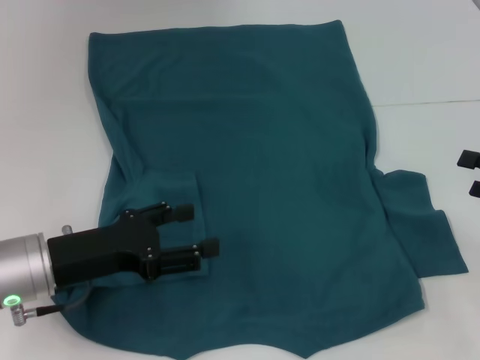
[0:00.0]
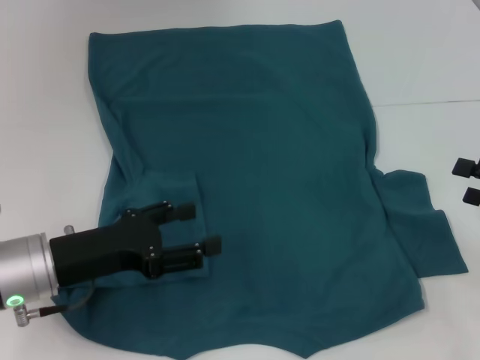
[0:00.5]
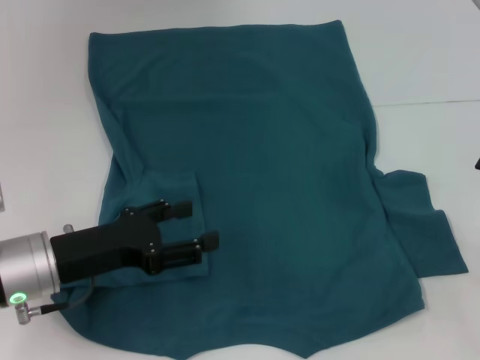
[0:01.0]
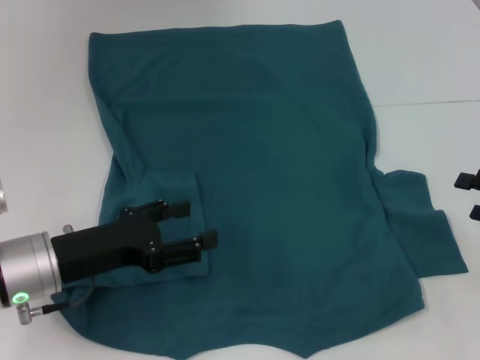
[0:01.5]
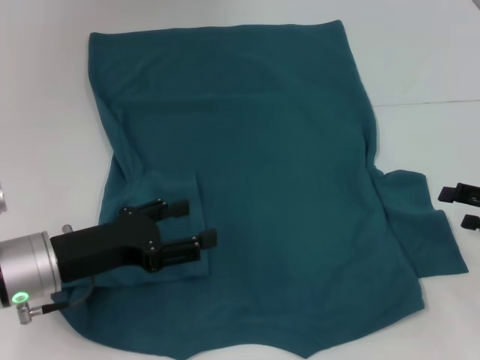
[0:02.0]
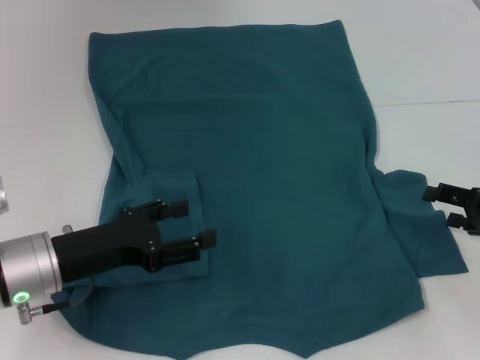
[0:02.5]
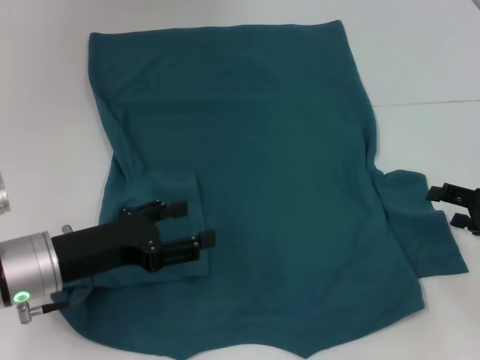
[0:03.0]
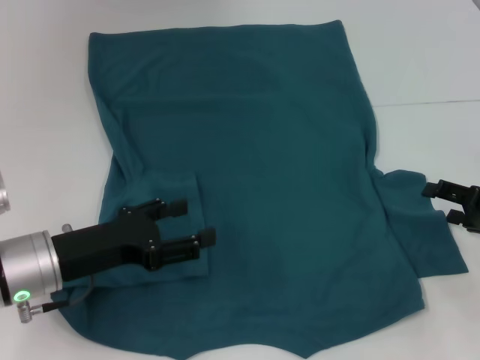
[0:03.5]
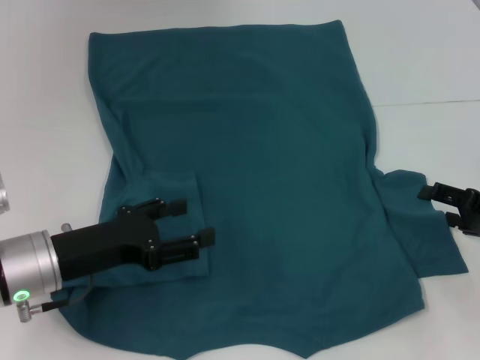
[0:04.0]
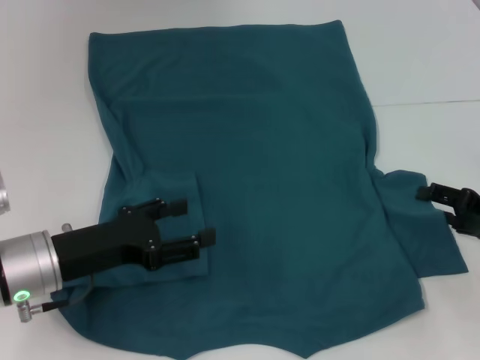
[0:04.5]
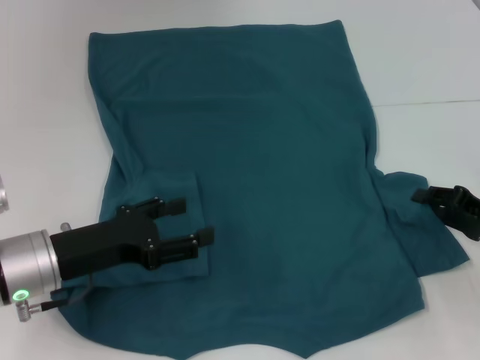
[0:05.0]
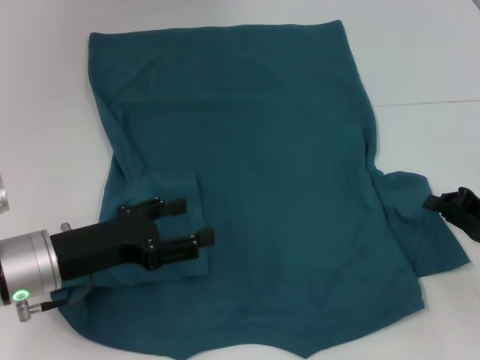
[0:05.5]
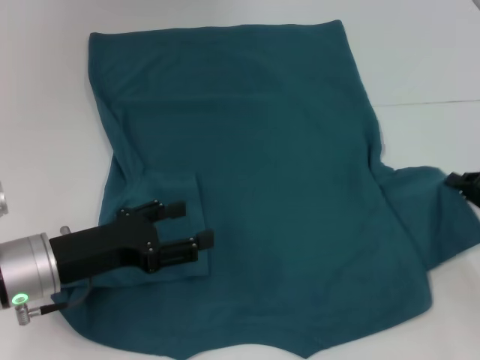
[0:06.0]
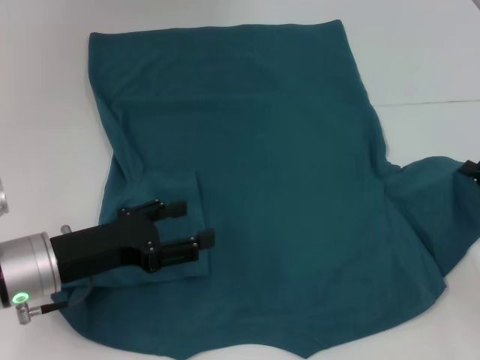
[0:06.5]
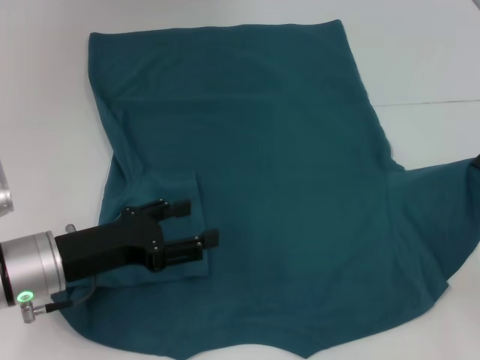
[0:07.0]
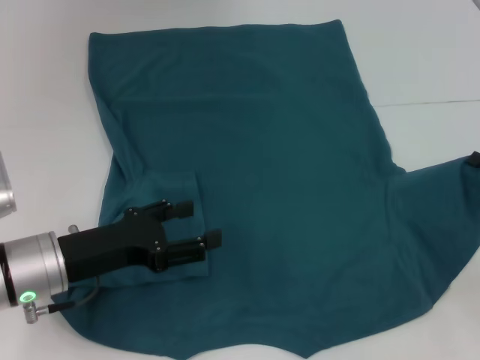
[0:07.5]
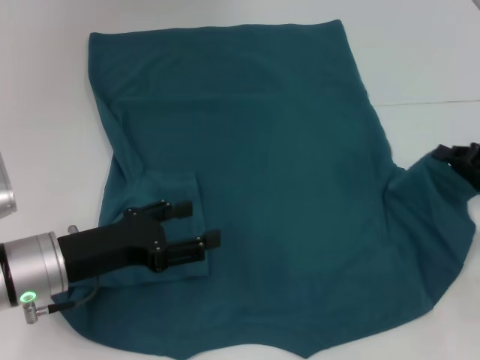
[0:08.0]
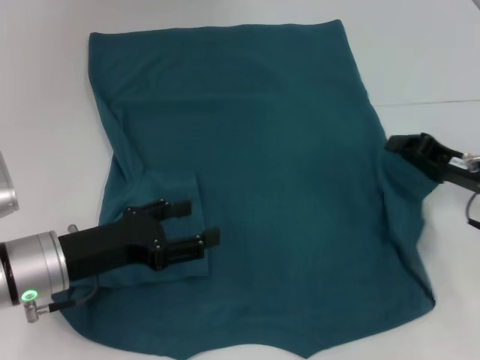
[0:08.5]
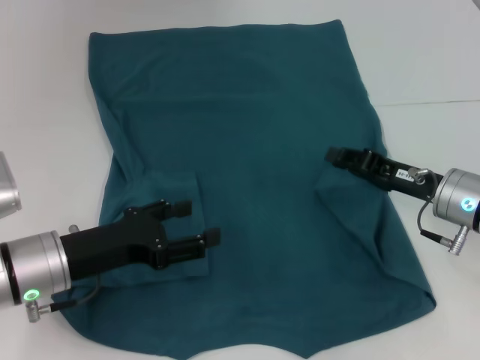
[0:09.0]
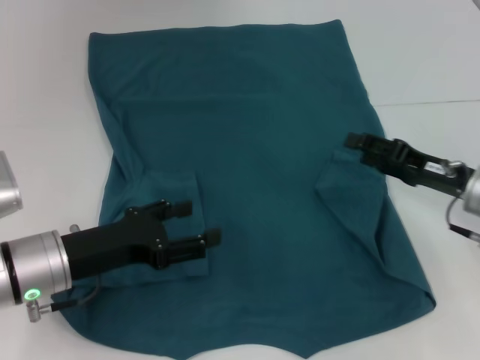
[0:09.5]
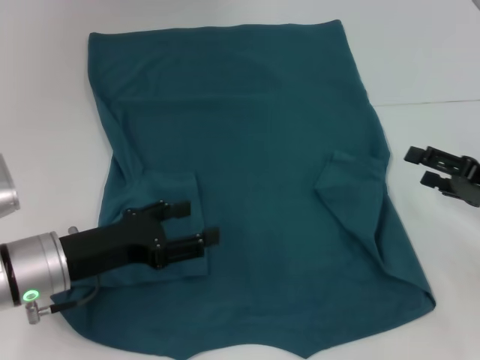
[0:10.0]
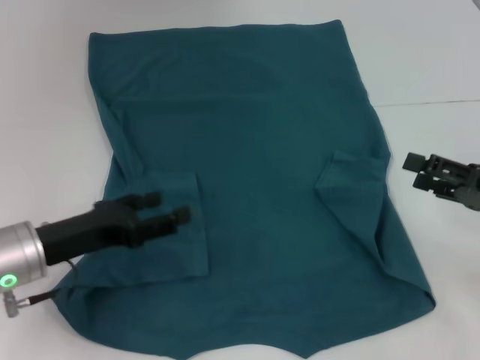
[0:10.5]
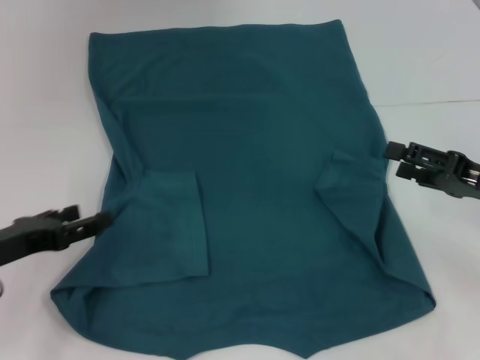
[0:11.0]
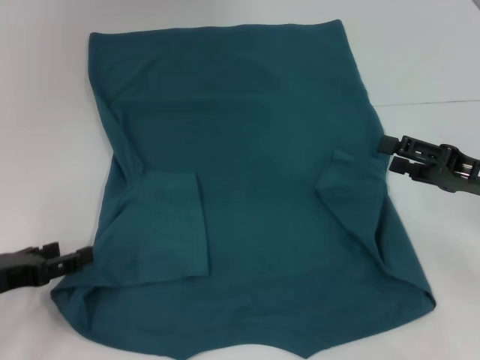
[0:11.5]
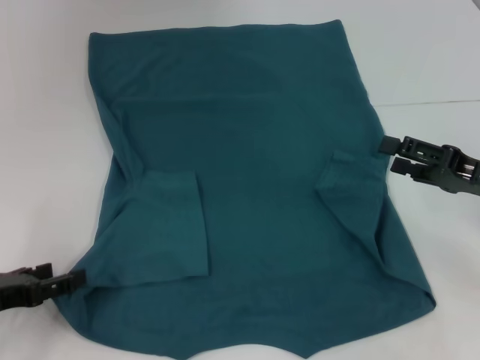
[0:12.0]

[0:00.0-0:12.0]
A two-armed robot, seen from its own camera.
Step, 0:00.0 to 0:09.0: Fold the bottom right sleeve to the right.
0:00.0 to 0:02.0: The grippers move only a little.
0:02.0 to 0:04.0: The grippers make only small movements.
0:04.0 to 0:06.0: The right gripper closes.
0:06.0 to 0:08.0: There are only small adjustments of the grippers.
0:08.0 to 0:10.0: The right gripper travels to the left and back again, approximately 10 cm each way, and opens.
0:10.0 to 0:12.0: The left gripper travels to the left by roughly 10 cm.

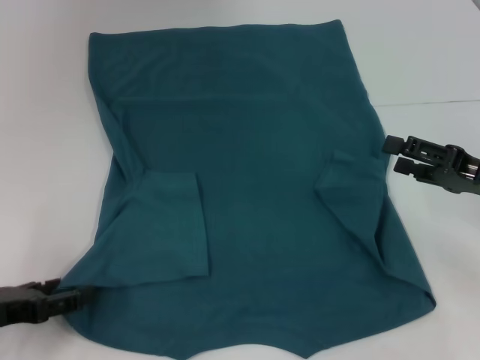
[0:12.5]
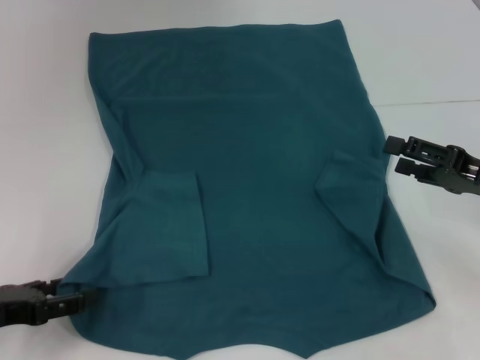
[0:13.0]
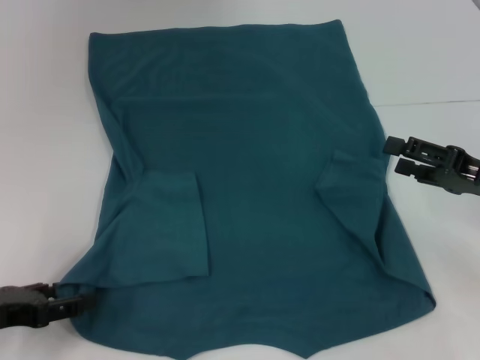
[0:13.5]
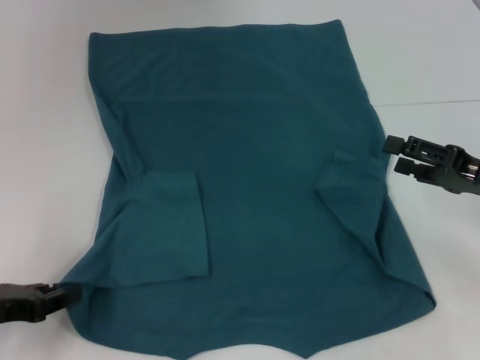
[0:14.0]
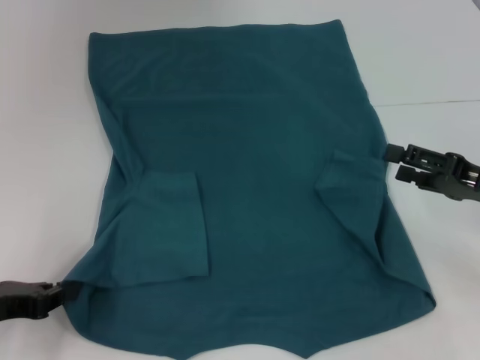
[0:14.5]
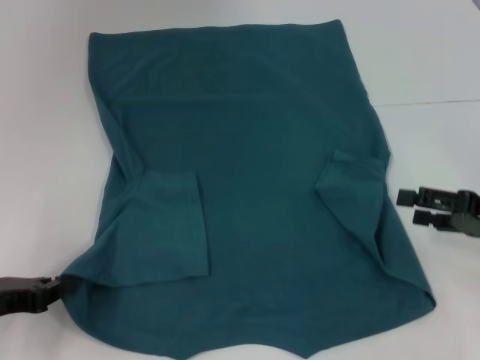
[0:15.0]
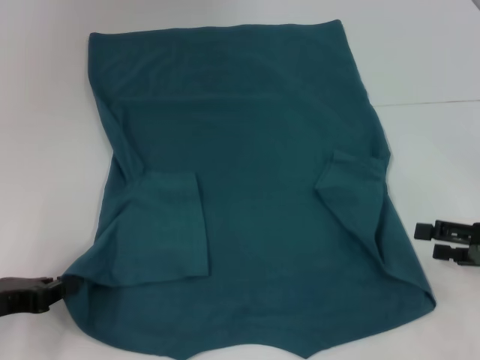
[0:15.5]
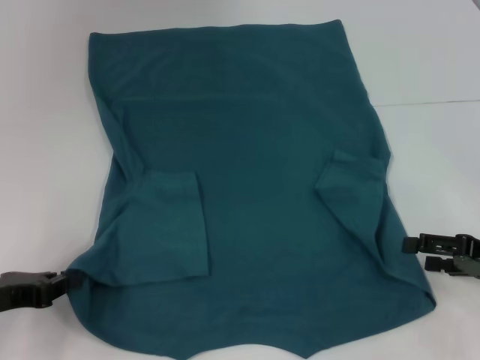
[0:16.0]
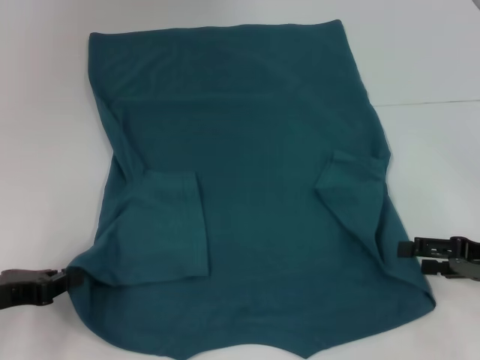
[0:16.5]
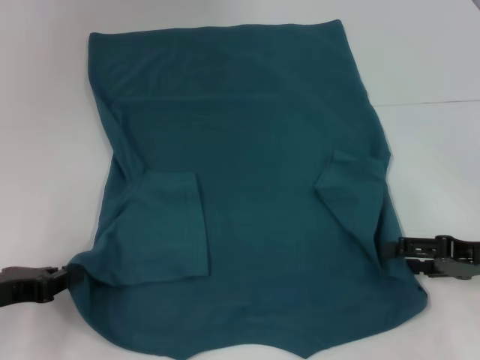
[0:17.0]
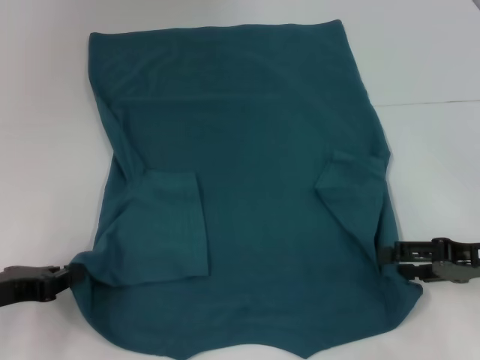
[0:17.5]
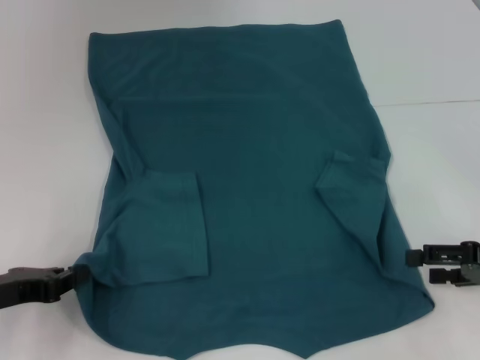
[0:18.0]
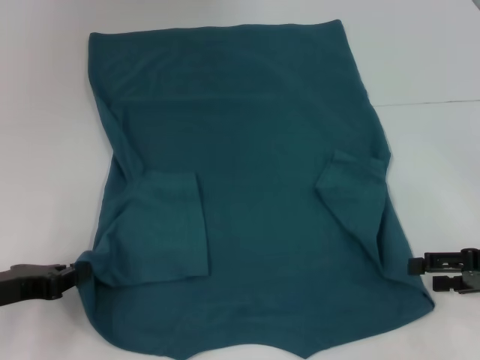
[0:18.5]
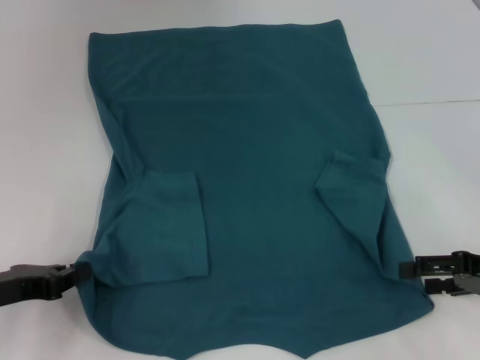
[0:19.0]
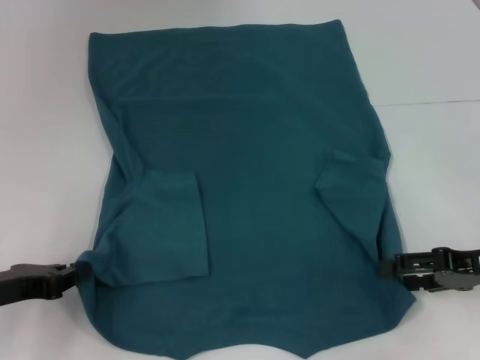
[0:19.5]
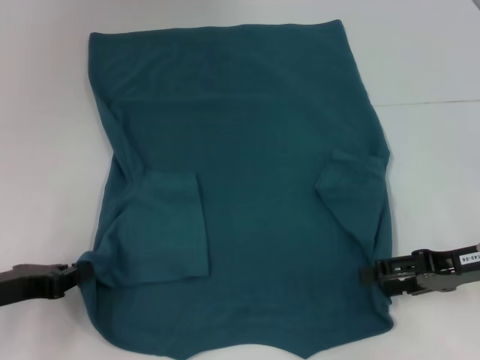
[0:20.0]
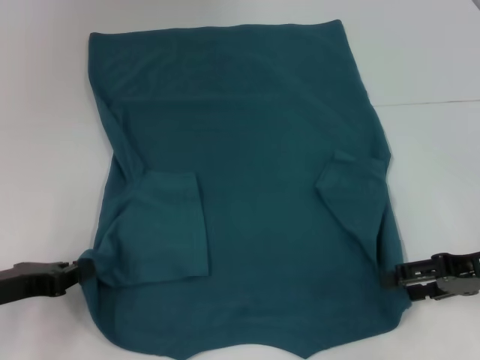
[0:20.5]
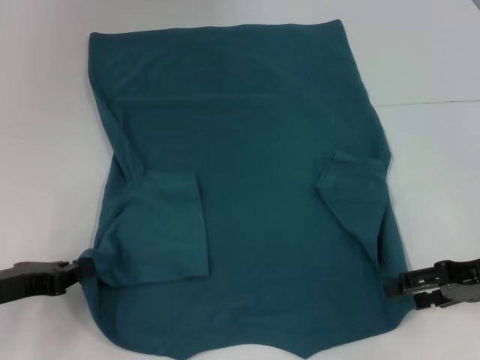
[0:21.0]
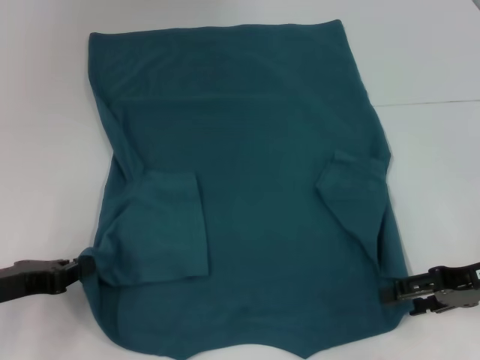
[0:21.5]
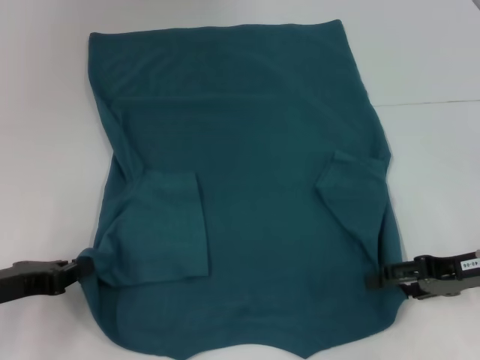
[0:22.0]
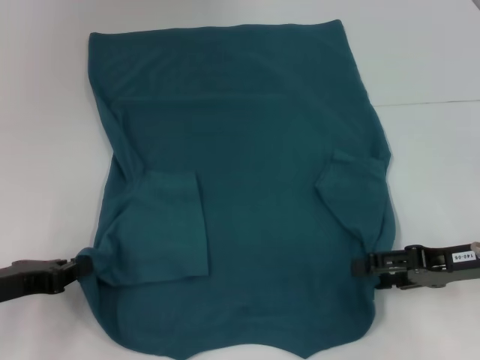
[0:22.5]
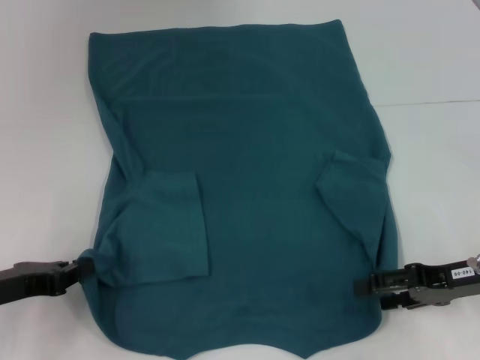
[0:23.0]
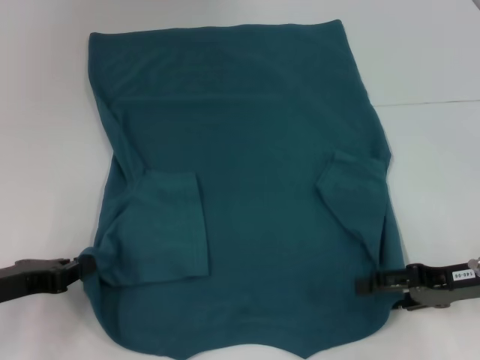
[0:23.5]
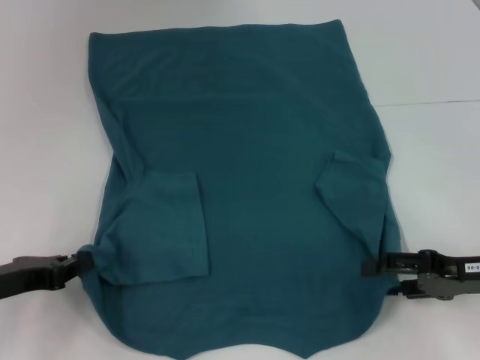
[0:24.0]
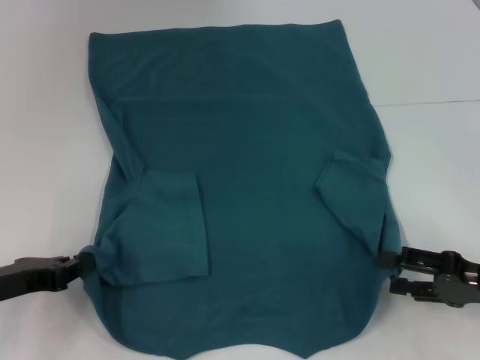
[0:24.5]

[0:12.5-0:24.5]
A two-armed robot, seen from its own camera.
Step, 0:12.5 to 0:14.5: Grab the bottom left corner with your left hand.
0:12.5 to 0:14.5: The left gripper closes.
0:16.5 to 0:22.5: The grippers move only a little.
0:22.5 to 0:24.5: The right gripper changes place by some 5 cm.

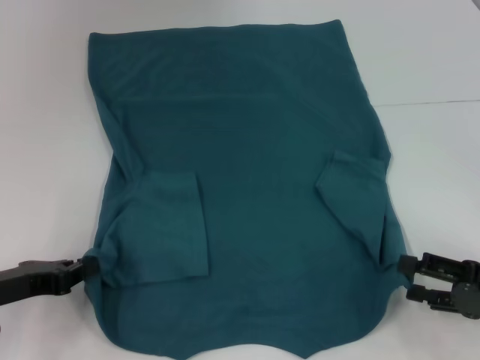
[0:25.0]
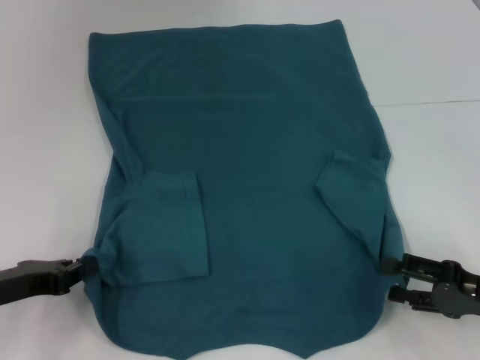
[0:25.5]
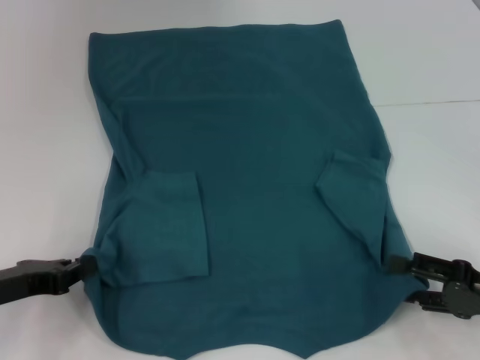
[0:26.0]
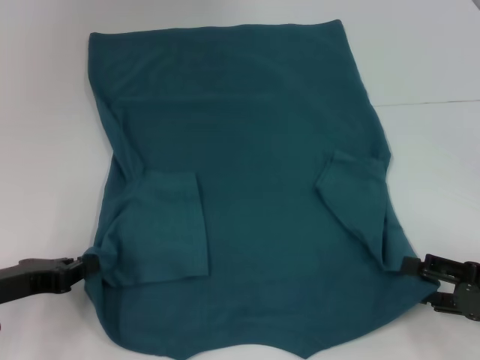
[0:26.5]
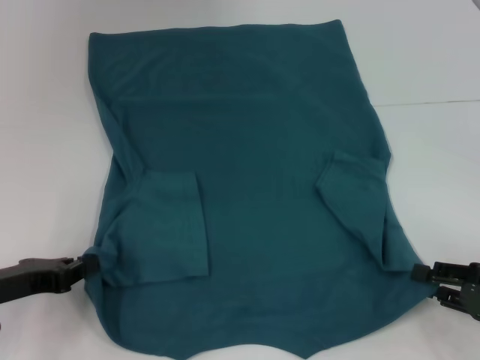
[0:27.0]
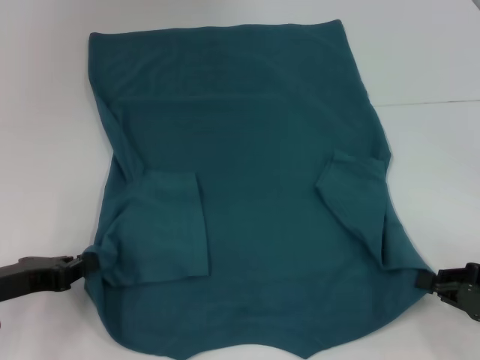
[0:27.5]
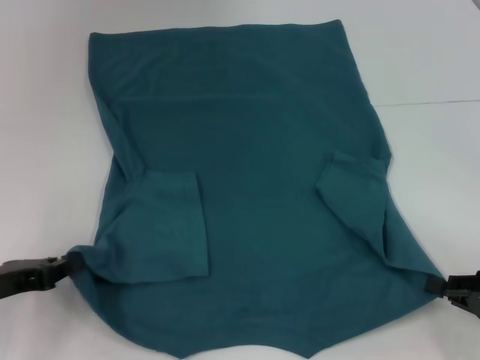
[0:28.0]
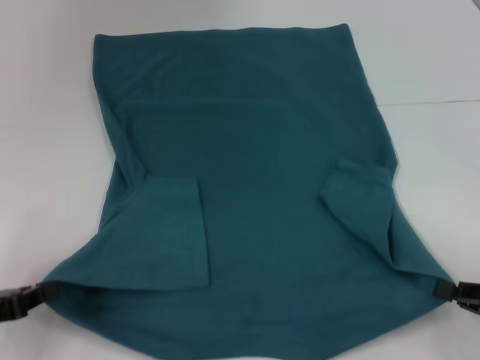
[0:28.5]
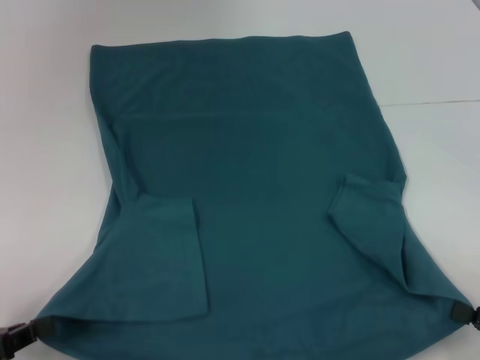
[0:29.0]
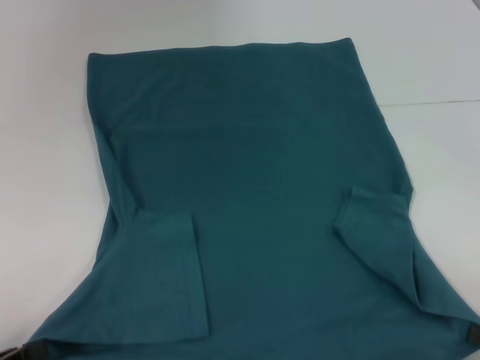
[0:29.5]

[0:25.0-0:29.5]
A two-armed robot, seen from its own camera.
Step, 0:25.0 to 0:28.0: Grab the bottom right corner with your right hand.
0:25.0 to 0:27.0: The grippers make only small movements.
0:27.0 to 0:29.5: The grippers both shift backward by some 10 cm. The right gripper closes up.
